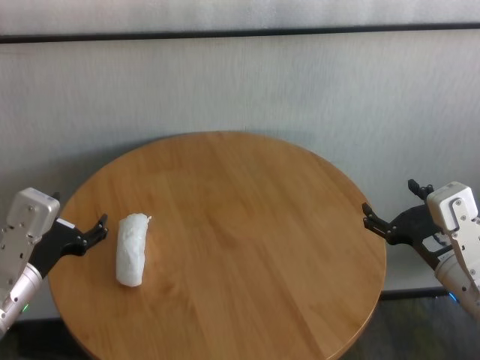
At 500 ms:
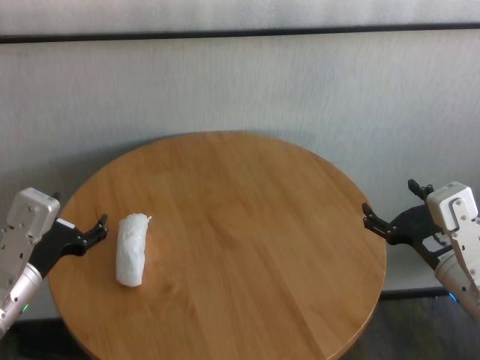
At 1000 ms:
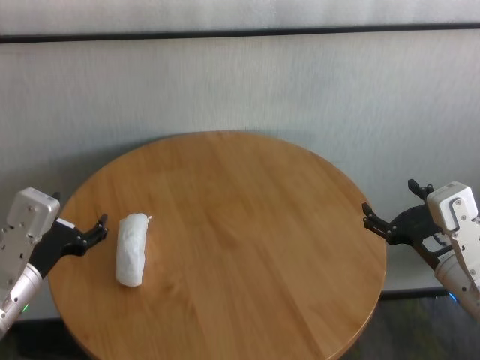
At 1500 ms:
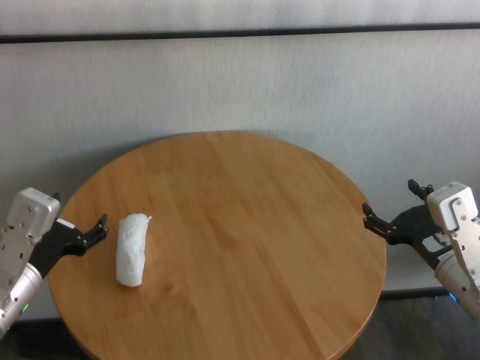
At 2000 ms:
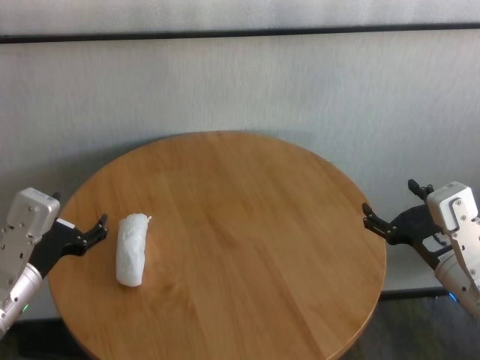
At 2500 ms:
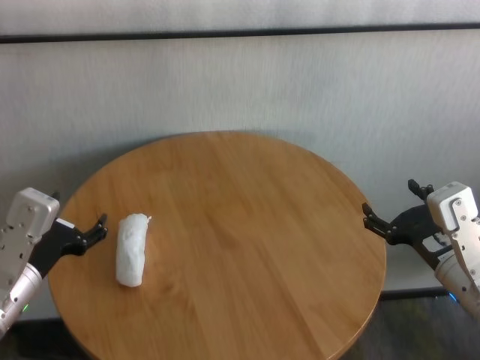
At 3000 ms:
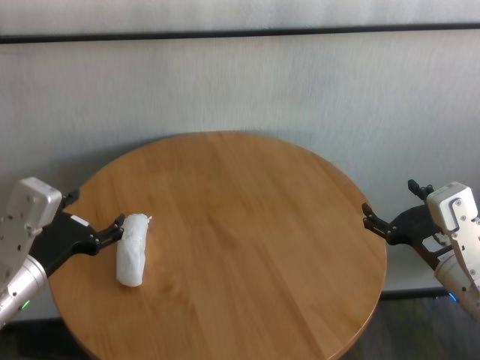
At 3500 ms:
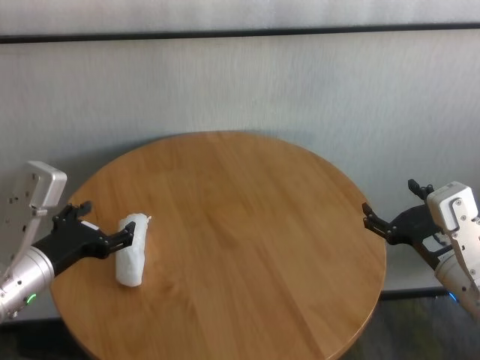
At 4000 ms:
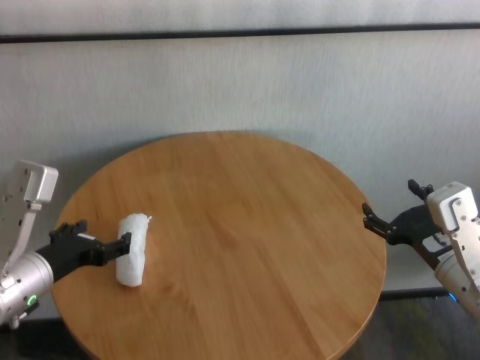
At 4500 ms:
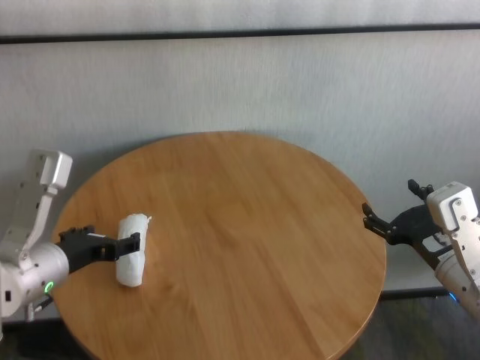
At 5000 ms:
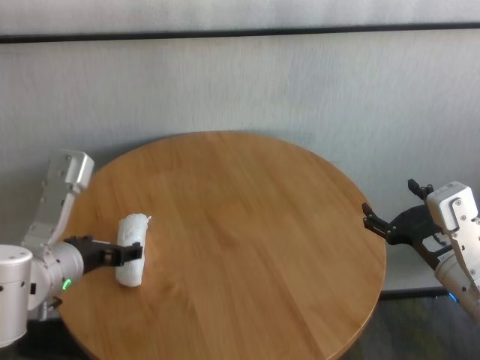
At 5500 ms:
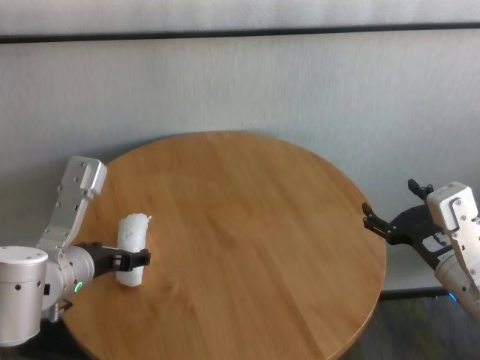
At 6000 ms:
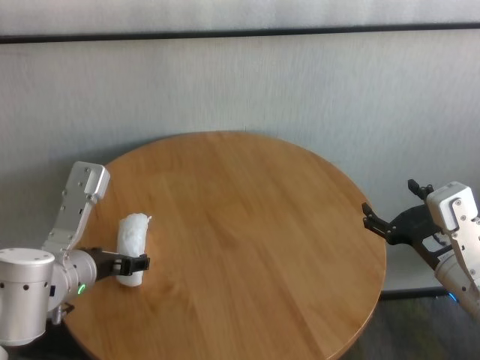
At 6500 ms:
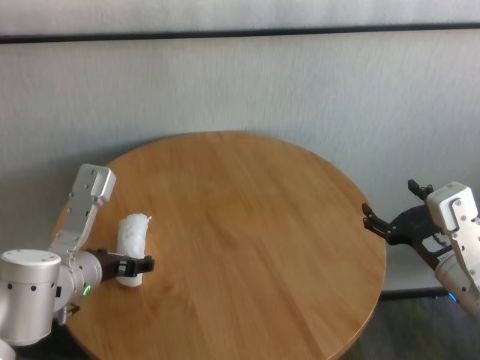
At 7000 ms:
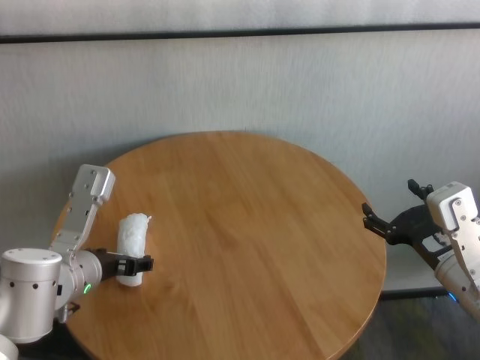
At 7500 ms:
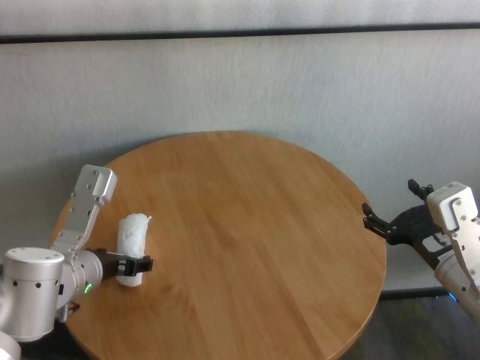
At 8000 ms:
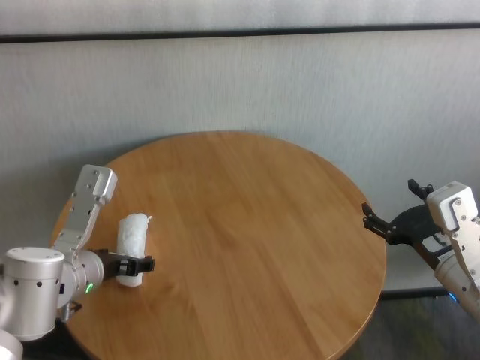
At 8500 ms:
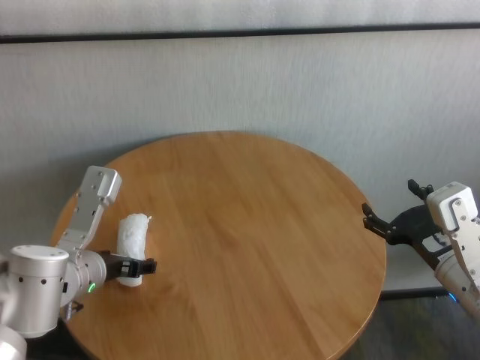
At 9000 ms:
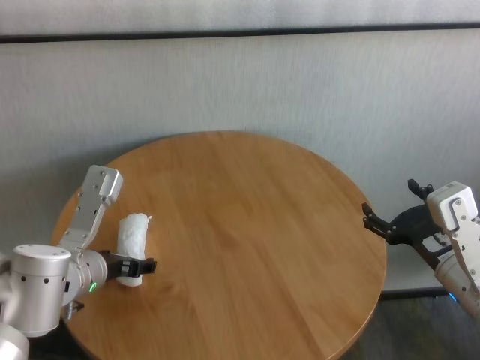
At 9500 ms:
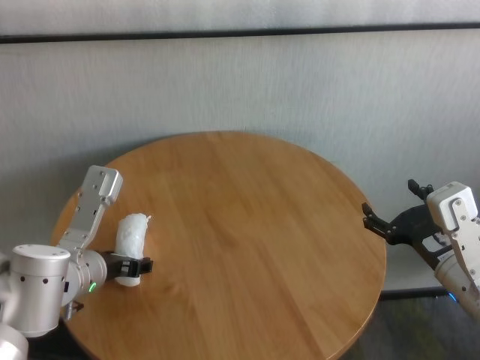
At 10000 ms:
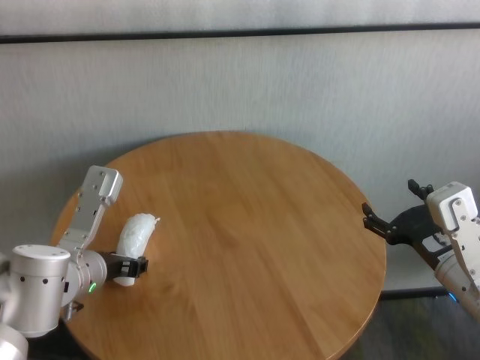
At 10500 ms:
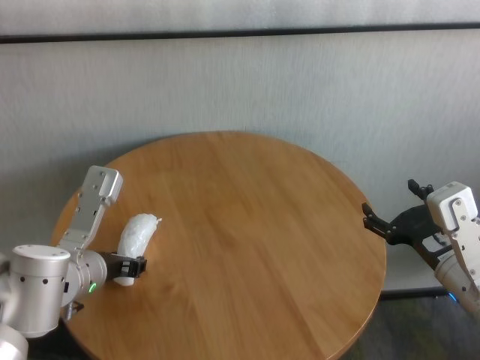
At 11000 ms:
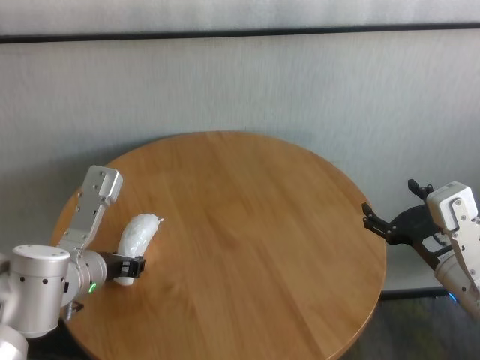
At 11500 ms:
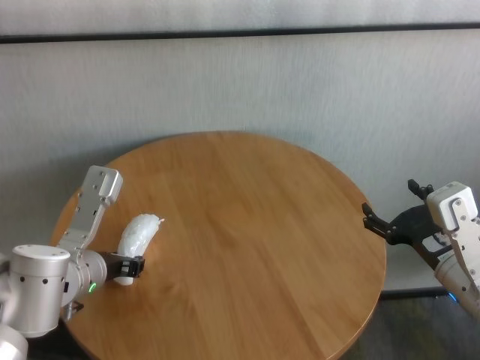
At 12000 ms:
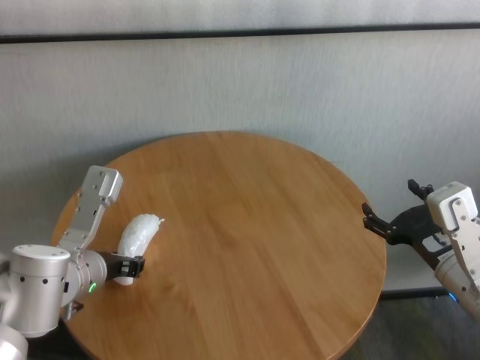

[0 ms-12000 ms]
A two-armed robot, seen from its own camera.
Task of the whole recording: One hand took the sandbag from the other hand and placed it on the table.
Step, 0 ms to 11000 ms: Grasp the paper ball with left gripper.

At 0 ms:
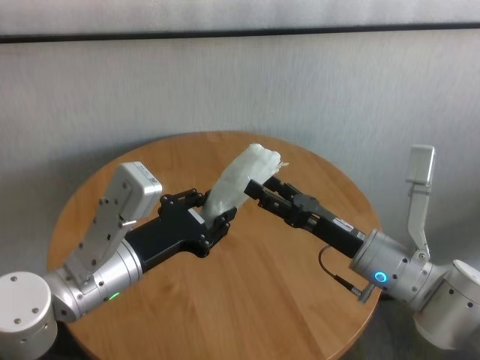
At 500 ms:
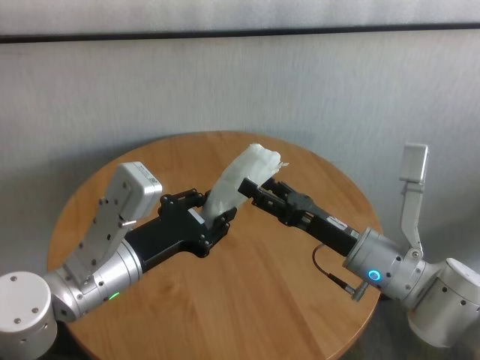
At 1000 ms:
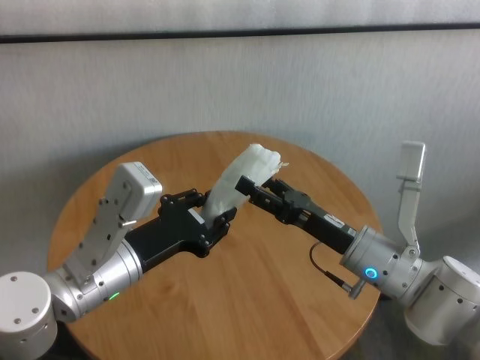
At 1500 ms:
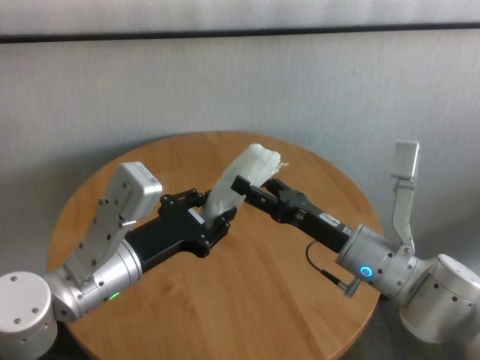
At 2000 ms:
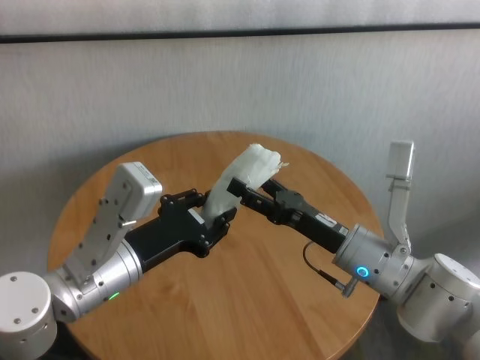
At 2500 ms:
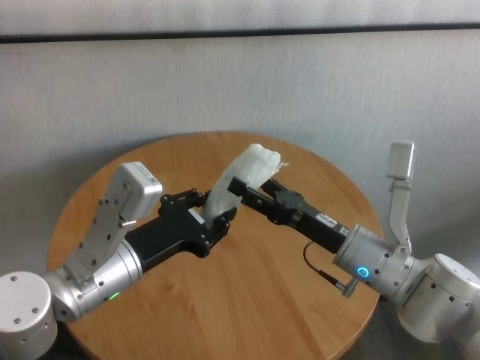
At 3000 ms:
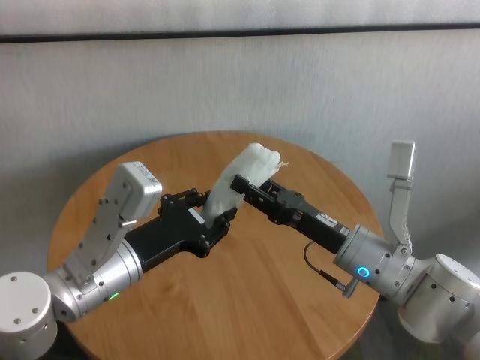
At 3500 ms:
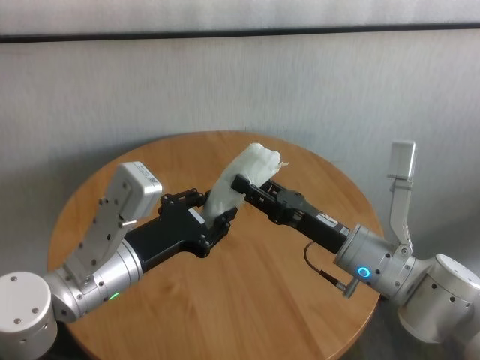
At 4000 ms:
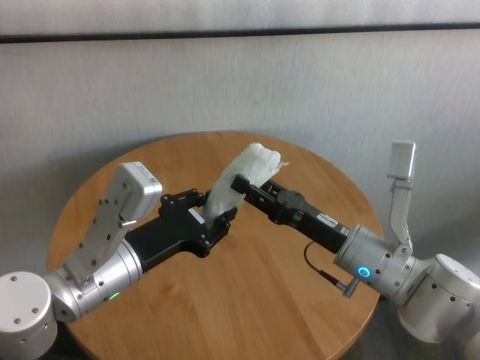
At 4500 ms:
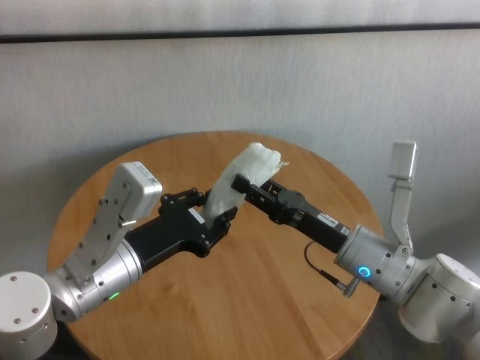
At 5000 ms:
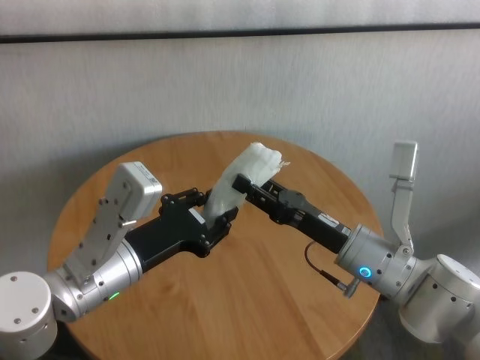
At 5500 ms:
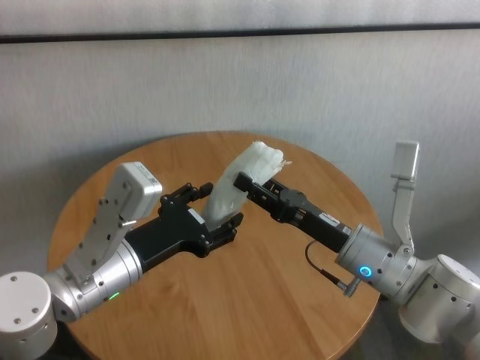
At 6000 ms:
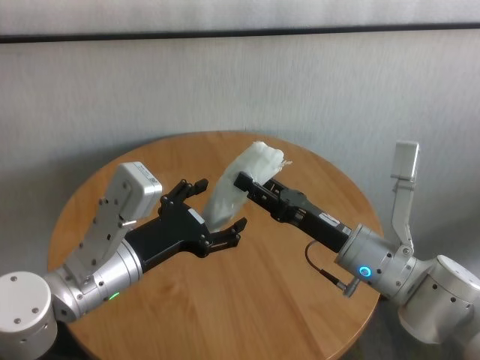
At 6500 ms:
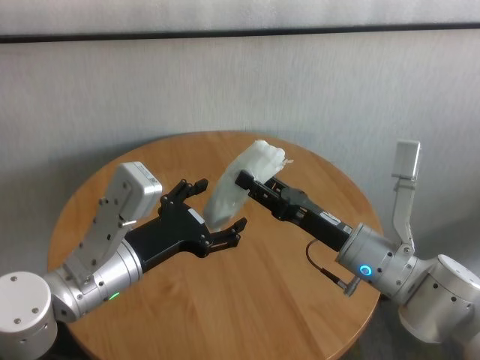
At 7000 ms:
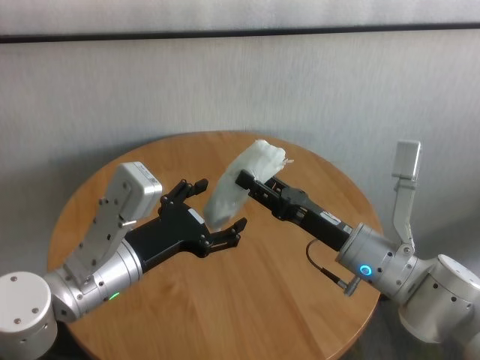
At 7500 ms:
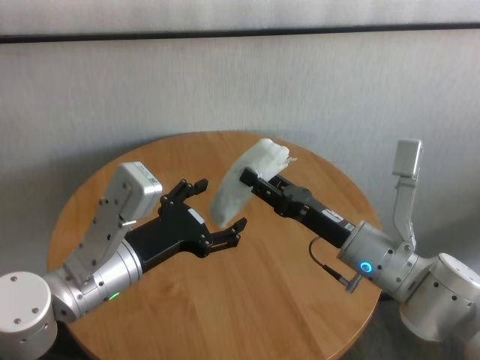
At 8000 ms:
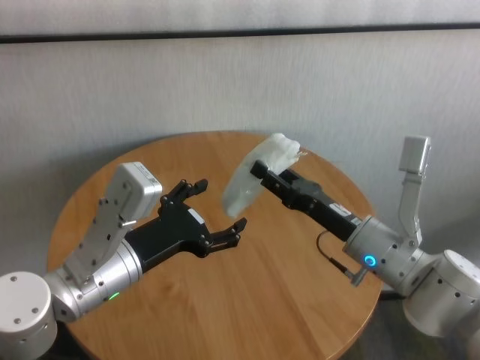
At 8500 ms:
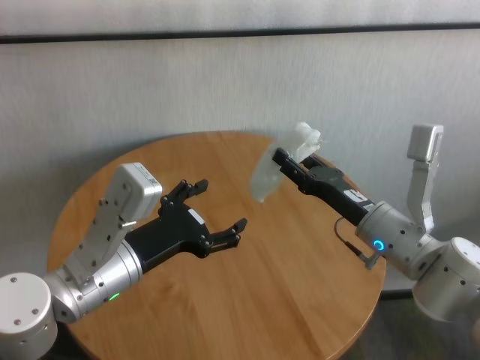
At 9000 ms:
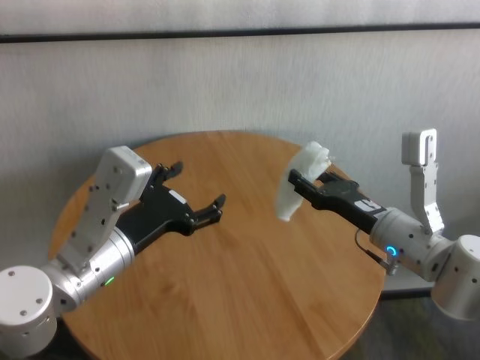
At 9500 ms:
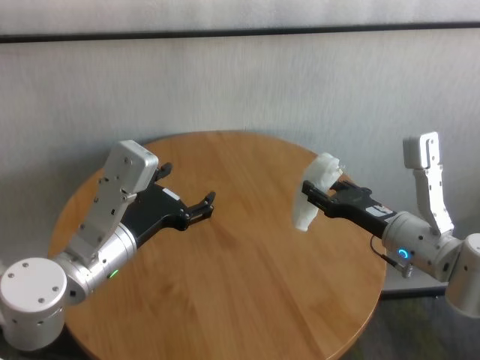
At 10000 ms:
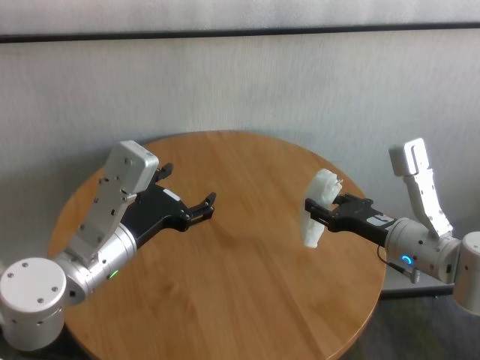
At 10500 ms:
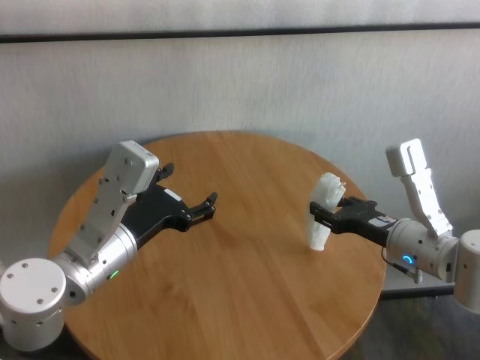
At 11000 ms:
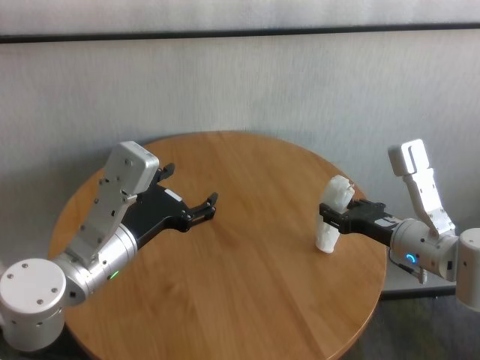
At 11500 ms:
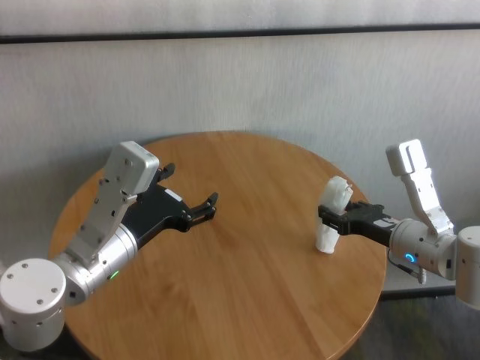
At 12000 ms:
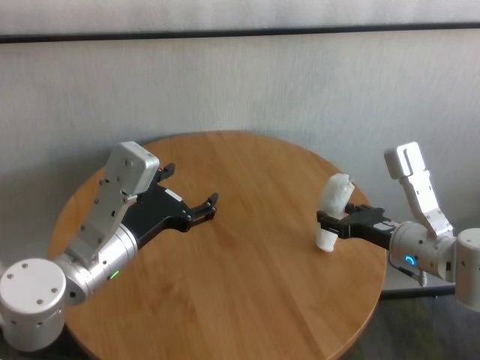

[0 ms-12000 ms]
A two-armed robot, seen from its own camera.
Task of the whole recording: One hand took the sandbag from the other hand and placed it on the table.
Step, 0 ms to 8000 ms: Pass the paper ball to the right gripper.
